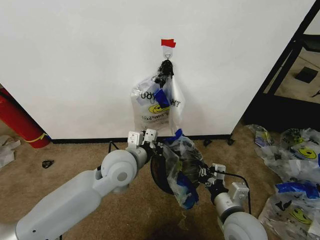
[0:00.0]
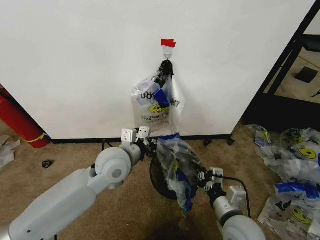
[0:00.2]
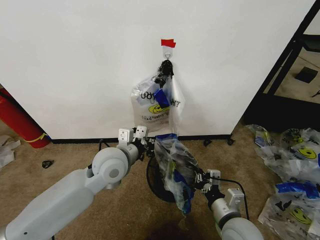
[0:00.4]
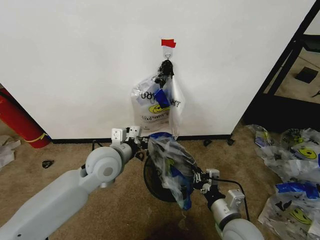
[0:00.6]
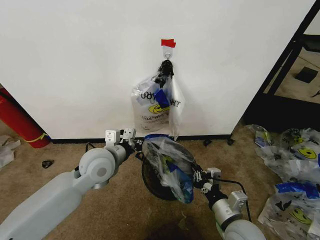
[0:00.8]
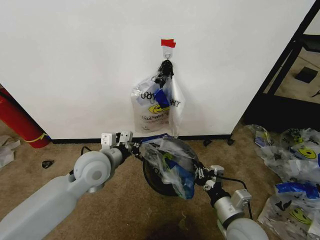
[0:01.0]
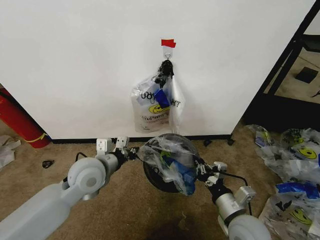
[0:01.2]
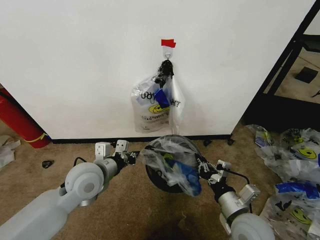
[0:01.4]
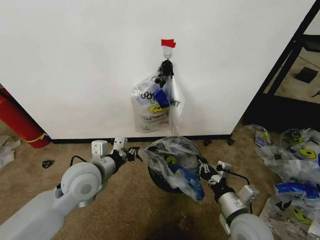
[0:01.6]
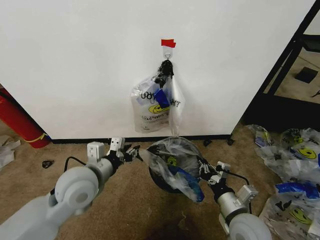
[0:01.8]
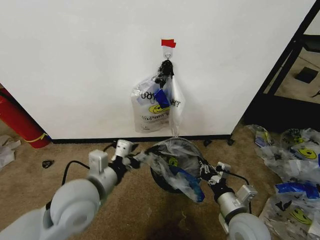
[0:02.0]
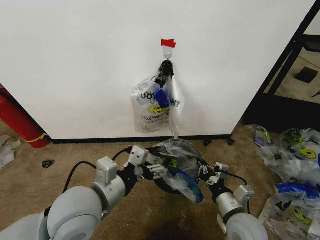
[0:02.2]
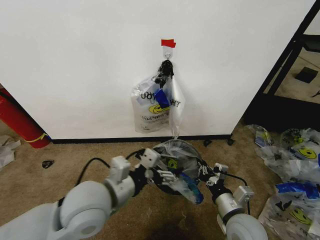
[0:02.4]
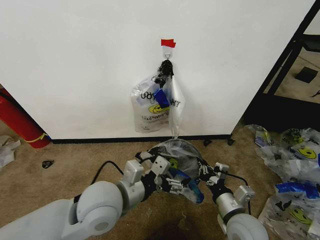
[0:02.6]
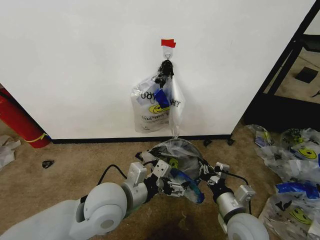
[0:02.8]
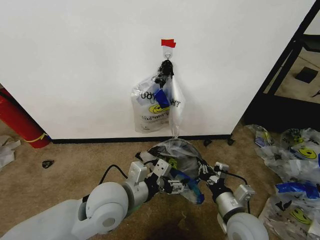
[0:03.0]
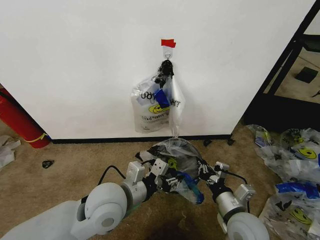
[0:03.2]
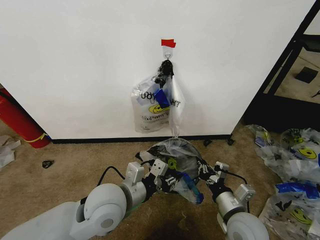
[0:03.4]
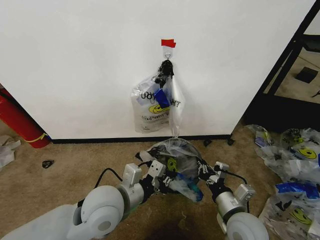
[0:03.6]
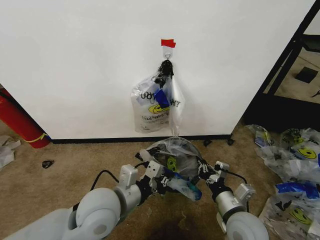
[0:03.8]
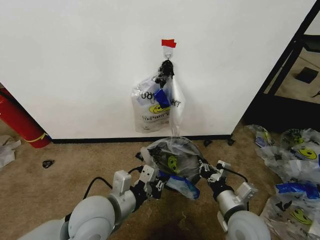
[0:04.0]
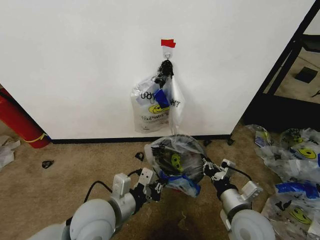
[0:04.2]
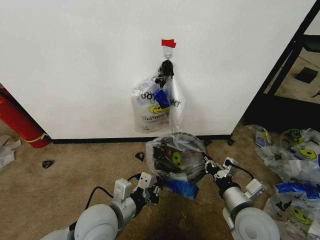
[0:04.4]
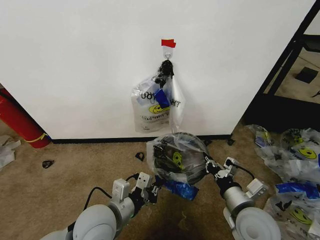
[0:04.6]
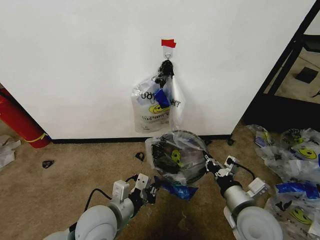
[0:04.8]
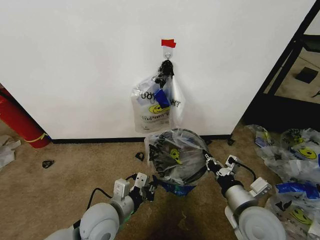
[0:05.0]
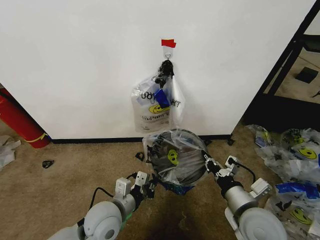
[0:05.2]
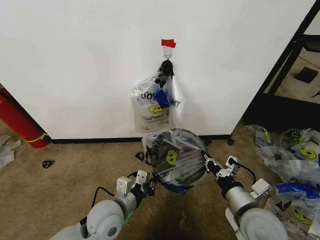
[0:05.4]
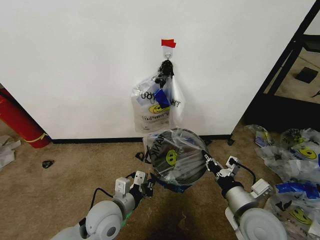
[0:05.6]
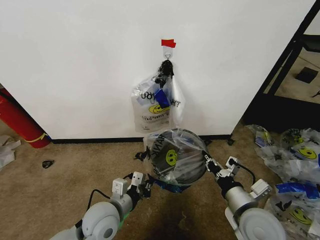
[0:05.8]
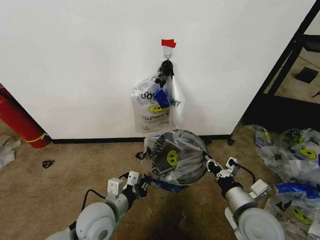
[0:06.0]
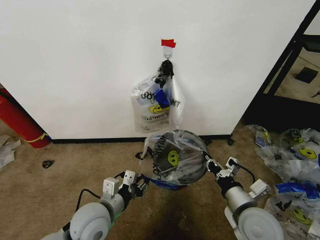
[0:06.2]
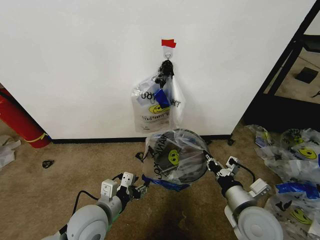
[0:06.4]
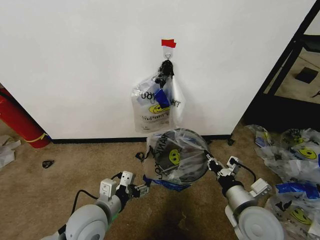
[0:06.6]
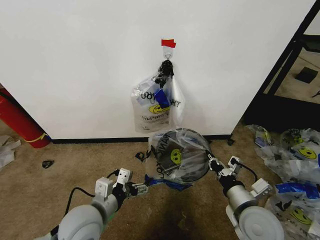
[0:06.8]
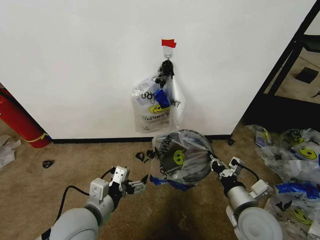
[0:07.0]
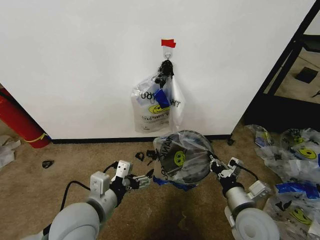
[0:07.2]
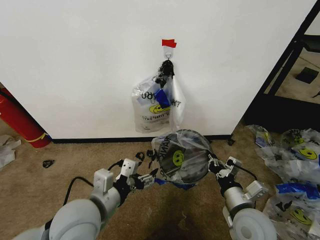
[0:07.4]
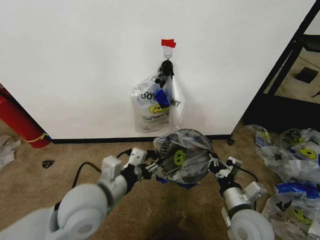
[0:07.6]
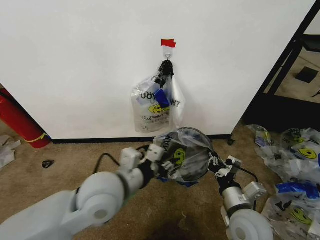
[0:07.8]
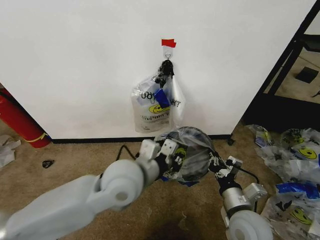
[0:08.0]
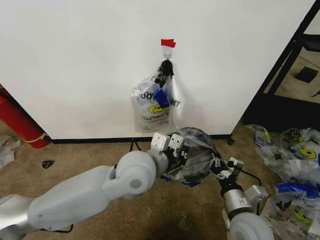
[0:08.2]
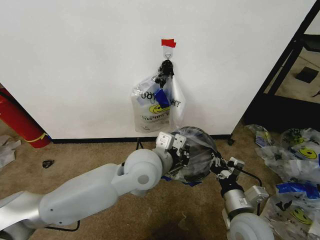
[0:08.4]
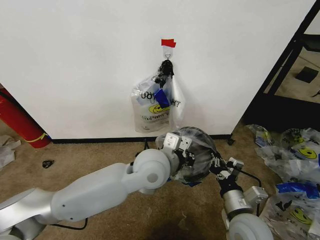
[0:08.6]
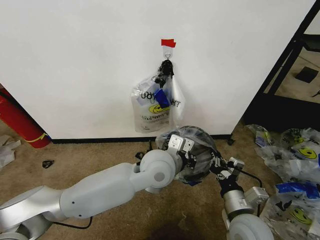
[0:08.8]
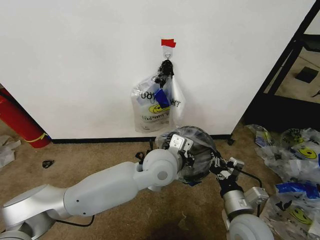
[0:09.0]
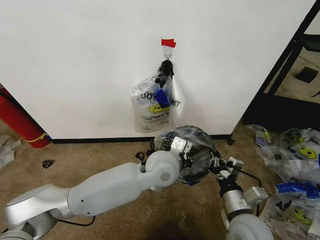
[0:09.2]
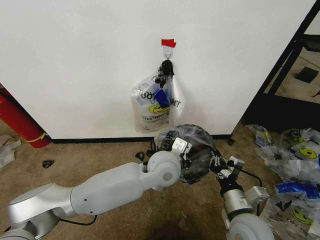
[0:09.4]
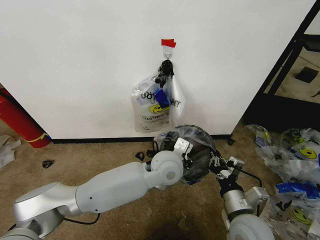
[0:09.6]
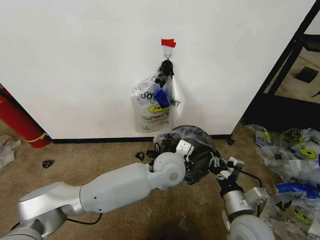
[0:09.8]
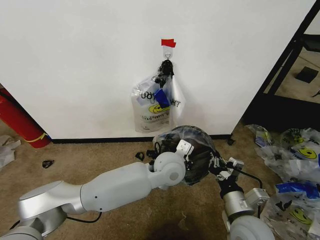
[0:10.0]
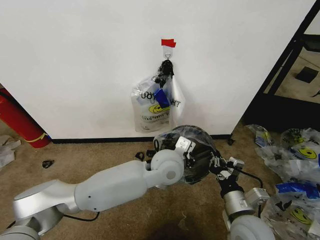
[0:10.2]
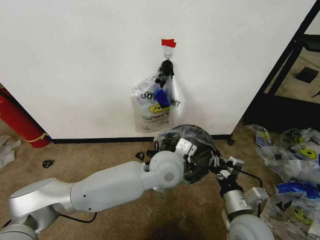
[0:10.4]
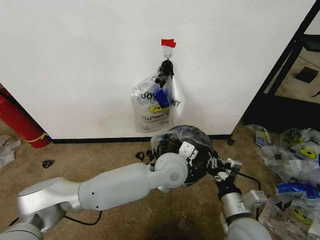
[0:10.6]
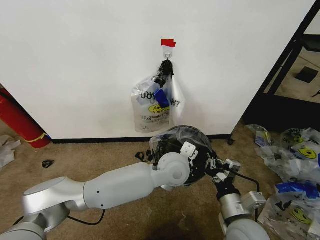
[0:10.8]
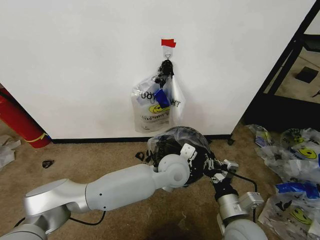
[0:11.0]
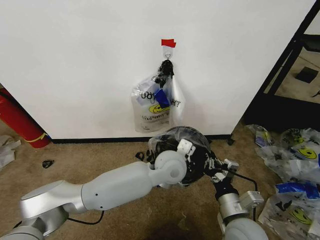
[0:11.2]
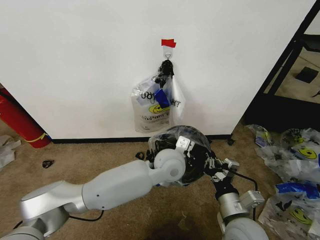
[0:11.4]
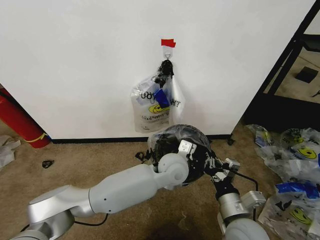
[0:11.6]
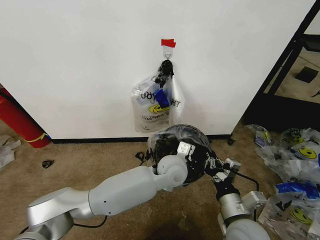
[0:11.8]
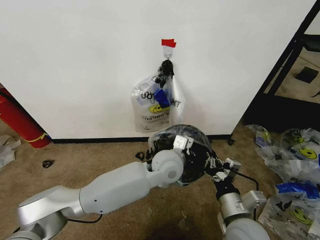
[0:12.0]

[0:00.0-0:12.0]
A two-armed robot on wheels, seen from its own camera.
Task of the whole recording: Pick up the garbage bag from the wall and place it over the trash bin.
0:00.0 to 0:01.6: The left gripper heads to the left, covering about 10 cm.
0:01.6 to 0:03.0: The left gripper moves to the right and backward, some 10 cm, and opens up.
0:03.0 to 0:04.4: The left gripper shifts by about 5 cm, and closes its fingers.
0:04.4 to 0:06.0: The left gripper ends up roughly 5 cm from where it was.
0:06.0 to 0:07.6: The left gripper goes approximately 10 cm upward, and opens, then closes once more.
0:07.6 to 0:09.0: The left gripper travels to the right and forward by approximately 20 cm, and closes up.
0:09.0 to 0:10.4: The grippers stay close to where they were, moving slightly.

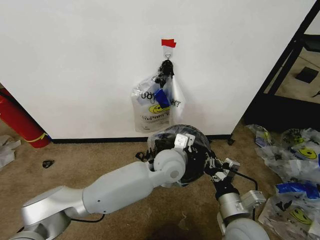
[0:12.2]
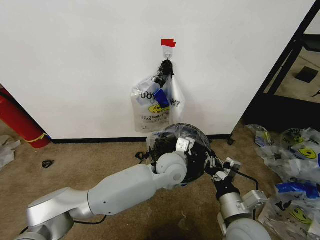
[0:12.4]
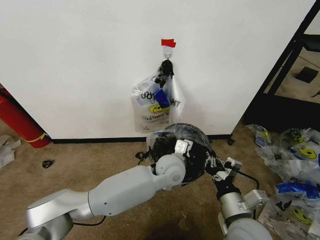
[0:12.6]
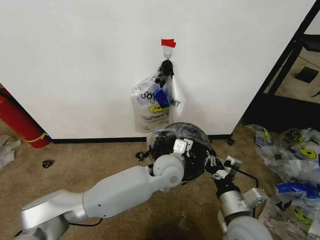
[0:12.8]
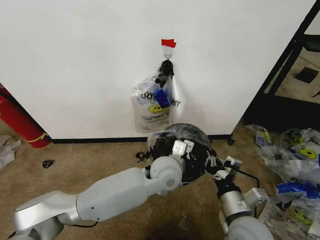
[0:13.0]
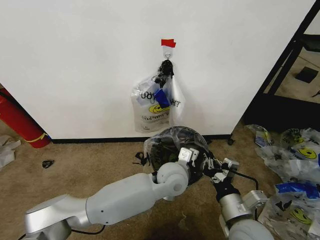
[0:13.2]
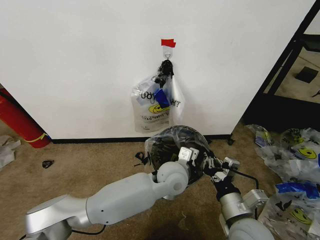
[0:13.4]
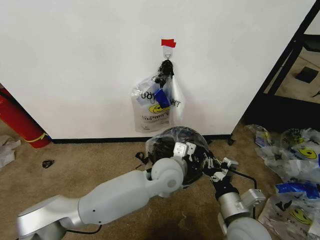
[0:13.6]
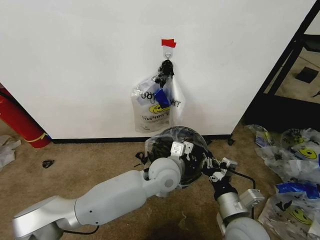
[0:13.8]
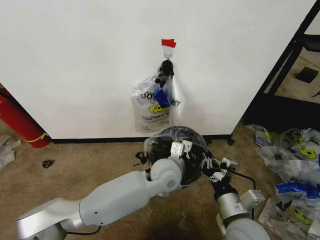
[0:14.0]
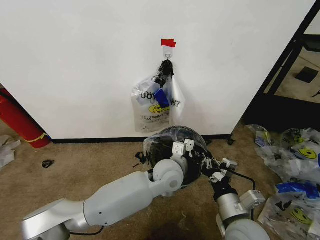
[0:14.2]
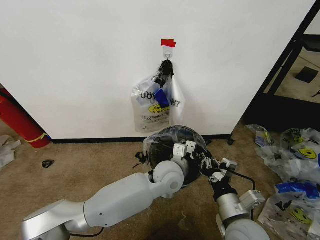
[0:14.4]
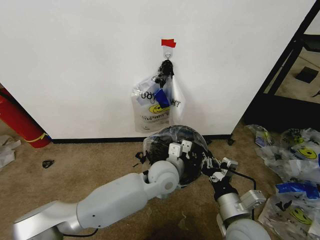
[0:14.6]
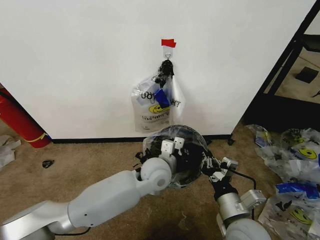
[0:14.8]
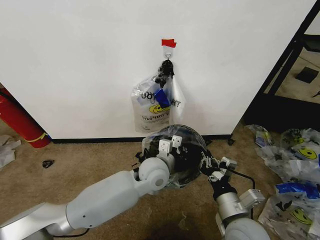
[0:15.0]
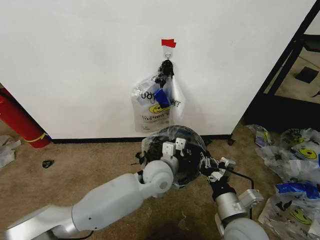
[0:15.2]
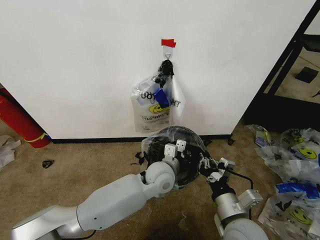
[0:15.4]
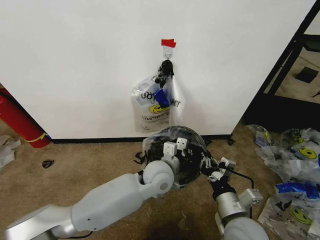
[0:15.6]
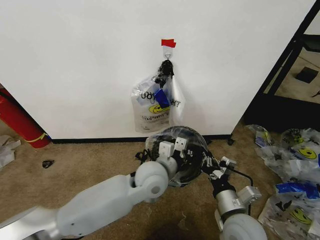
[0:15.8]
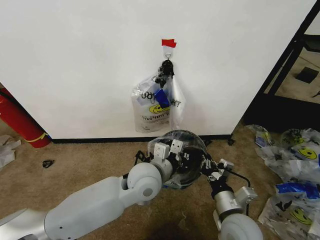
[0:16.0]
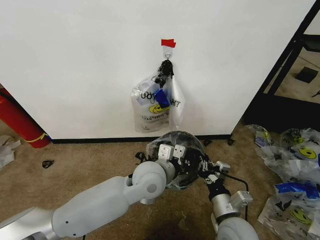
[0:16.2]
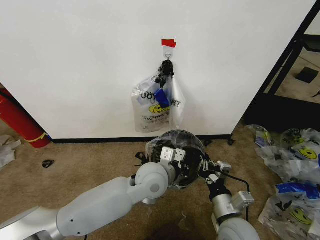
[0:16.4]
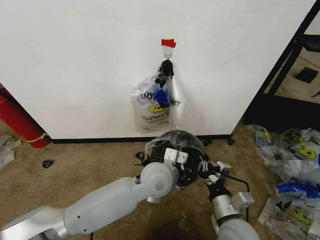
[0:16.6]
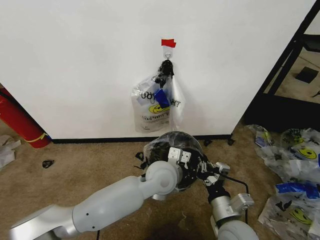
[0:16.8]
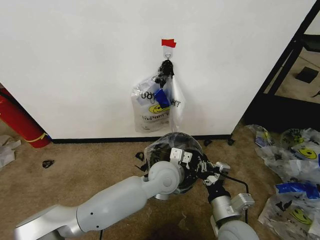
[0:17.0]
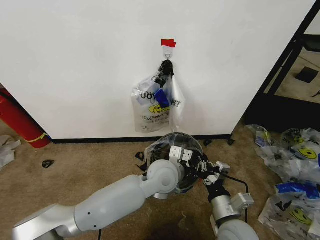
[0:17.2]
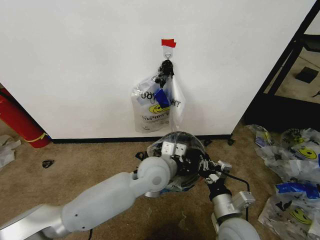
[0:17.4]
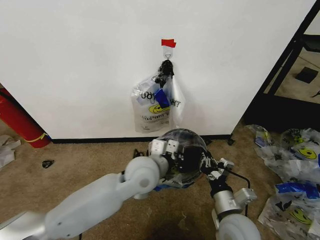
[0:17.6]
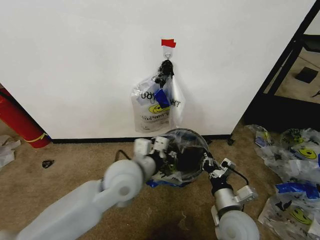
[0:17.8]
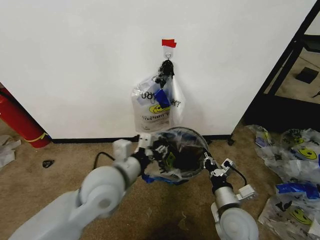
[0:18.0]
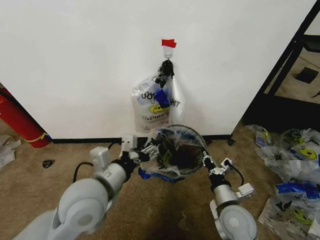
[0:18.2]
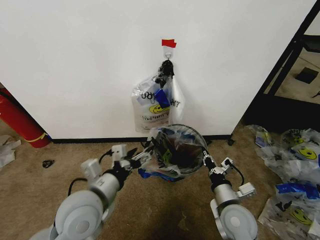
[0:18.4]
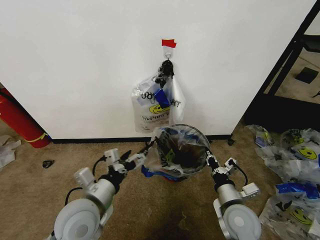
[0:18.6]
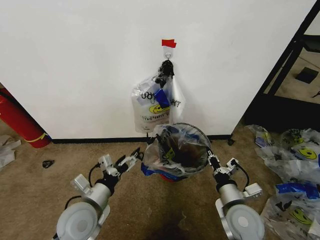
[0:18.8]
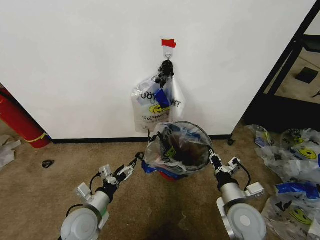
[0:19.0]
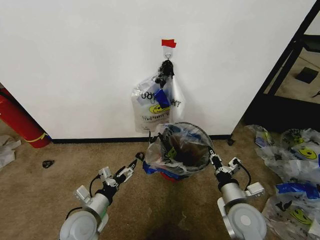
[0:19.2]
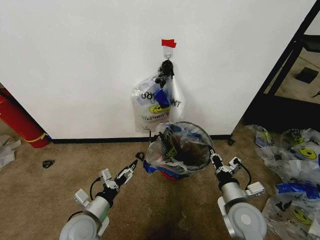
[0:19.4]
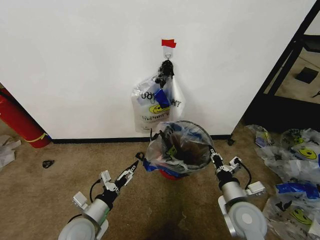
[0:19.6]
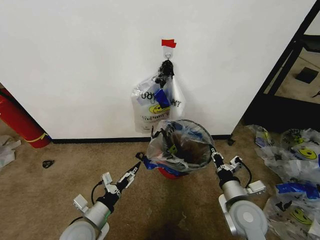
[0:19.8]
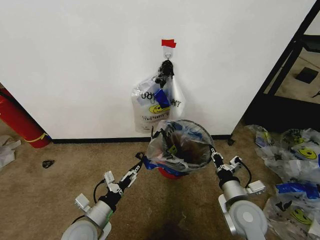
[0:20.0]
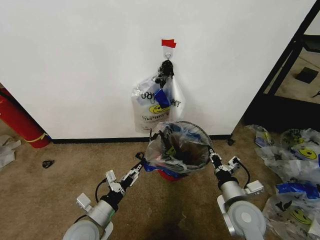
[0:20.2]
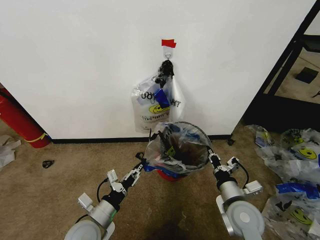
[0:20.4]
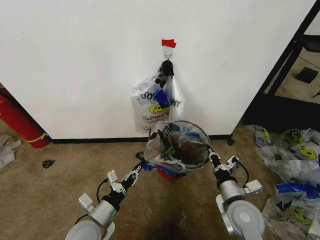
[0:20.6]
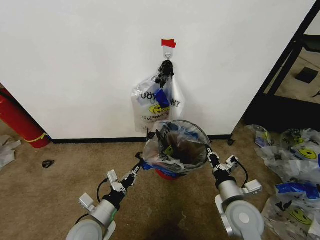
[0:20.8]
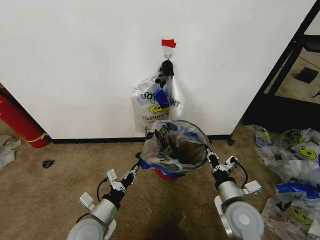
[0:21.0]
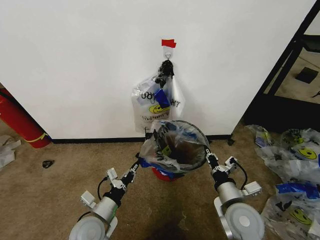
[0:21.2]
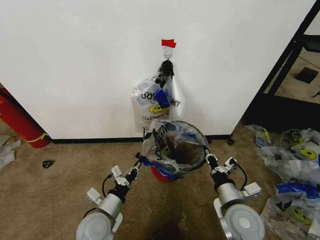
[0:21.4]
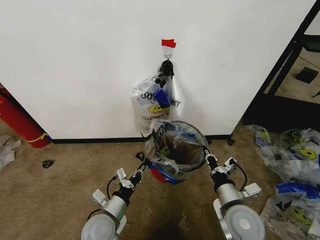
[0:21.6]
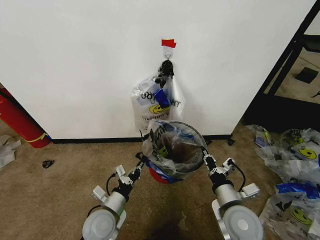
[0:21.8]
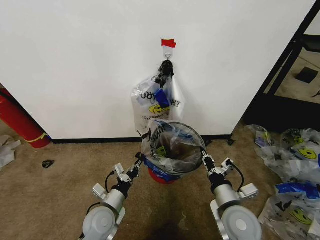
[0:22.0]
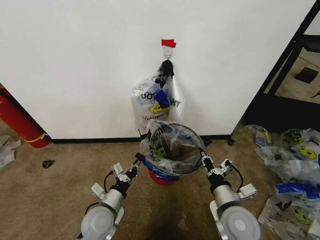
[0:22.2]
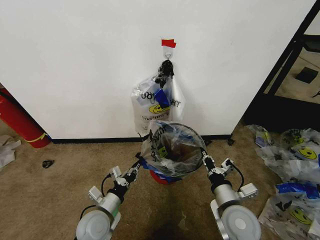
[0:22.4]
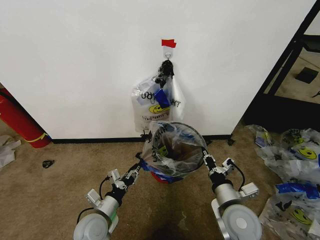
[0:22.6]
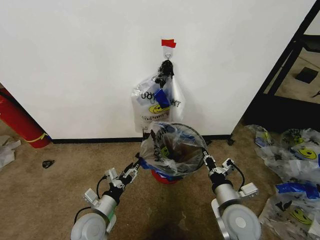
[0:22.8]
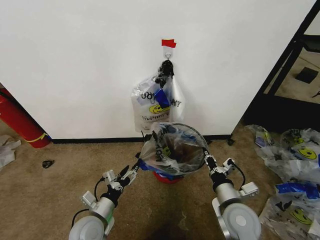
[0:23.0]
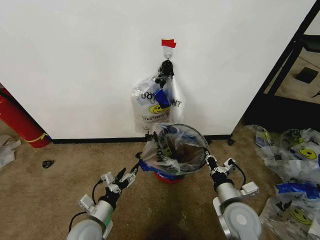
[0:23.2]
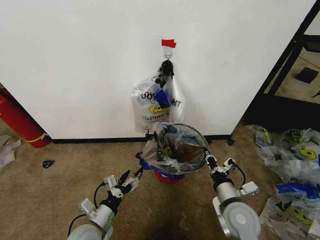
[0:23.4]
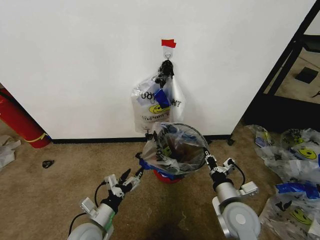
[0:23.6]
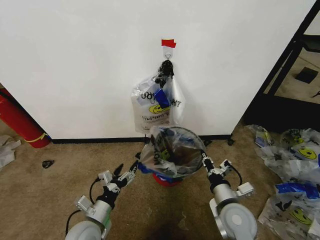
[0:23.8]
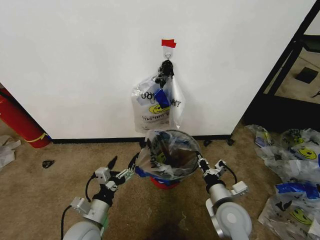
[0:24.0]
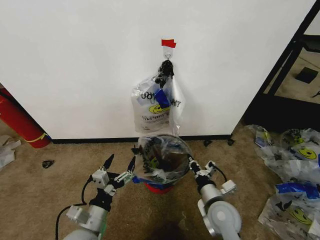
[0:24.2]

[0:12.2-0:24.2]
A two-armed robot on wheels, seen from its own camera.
Task of the whole recording: Pick up the garbage bag from the wall and place it over the trash bin.
0:12.2 to 0:15.2: There are only small adjustments of the grippers.
0:16.6 to 0:18.2: The left gripper shifts approximately 20 cm to the left, backward and upward, and opens up; the right gripper moves about 5 cm.
0:18.2 to 0:19.8: The left gripper is displaced downward by approximately 20 cm.
0:19.8 to 0:21.2: The left gripper closes its fingers.
0:21.2 to 0:22.6: The left gripper opens.
0:22.6 to 0:24.2: The left gripper travels backward by approximately 5 cm, and opens its fingers. Meanwhile the right gripper moves about 5 cm.
